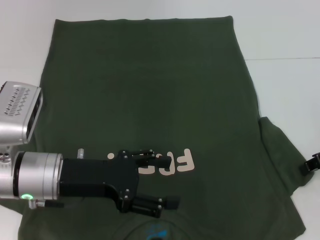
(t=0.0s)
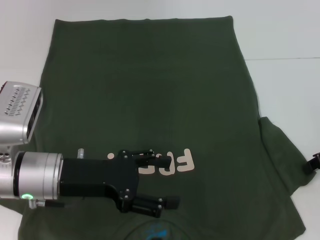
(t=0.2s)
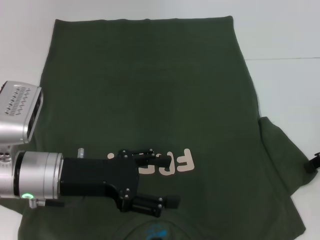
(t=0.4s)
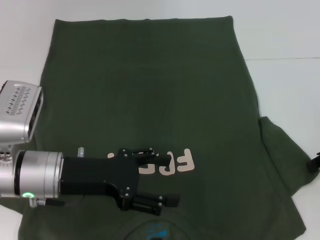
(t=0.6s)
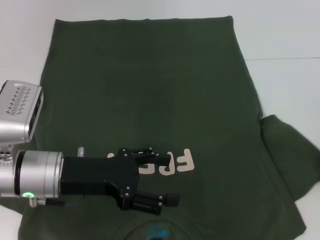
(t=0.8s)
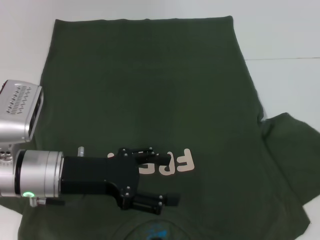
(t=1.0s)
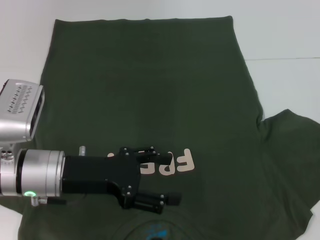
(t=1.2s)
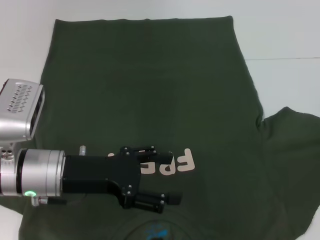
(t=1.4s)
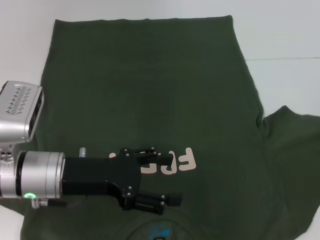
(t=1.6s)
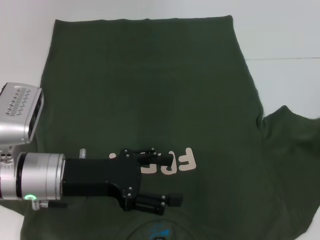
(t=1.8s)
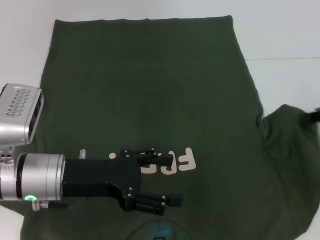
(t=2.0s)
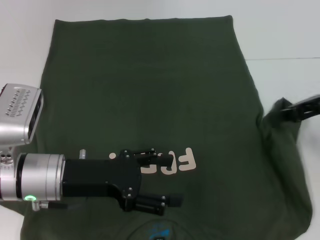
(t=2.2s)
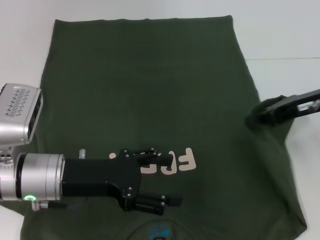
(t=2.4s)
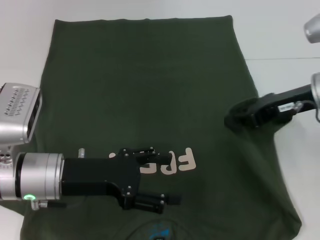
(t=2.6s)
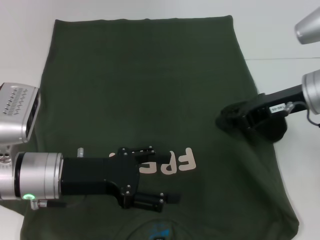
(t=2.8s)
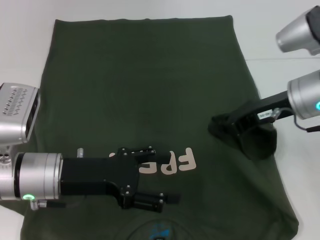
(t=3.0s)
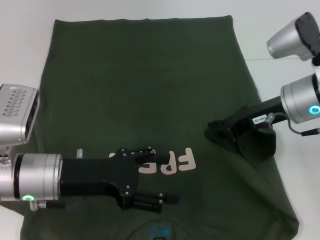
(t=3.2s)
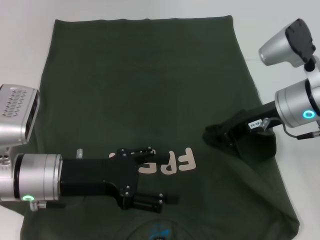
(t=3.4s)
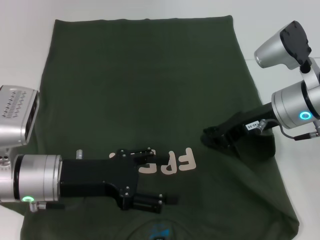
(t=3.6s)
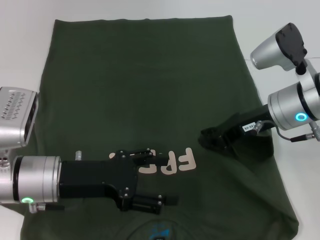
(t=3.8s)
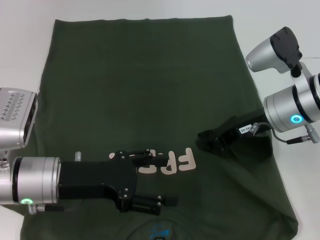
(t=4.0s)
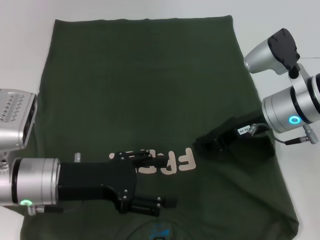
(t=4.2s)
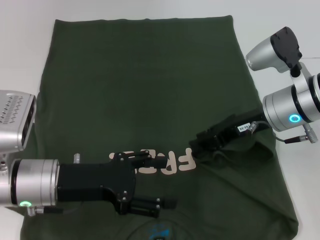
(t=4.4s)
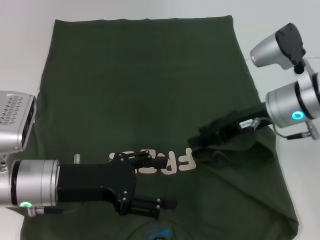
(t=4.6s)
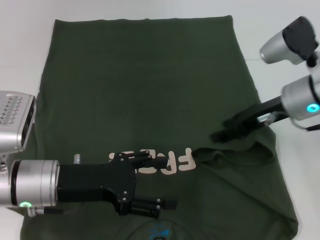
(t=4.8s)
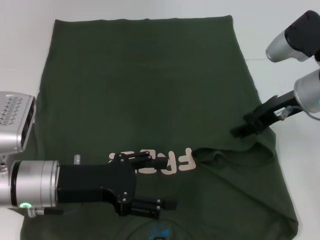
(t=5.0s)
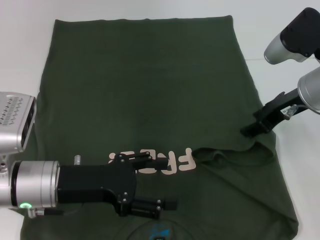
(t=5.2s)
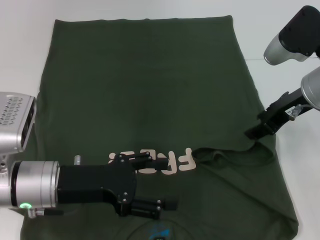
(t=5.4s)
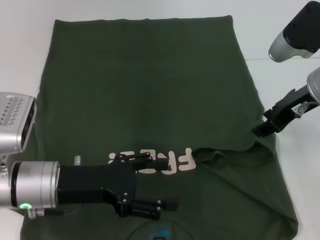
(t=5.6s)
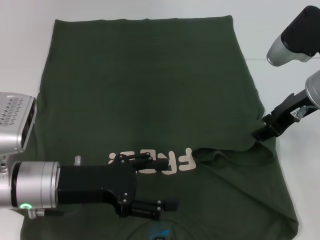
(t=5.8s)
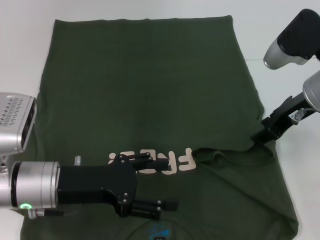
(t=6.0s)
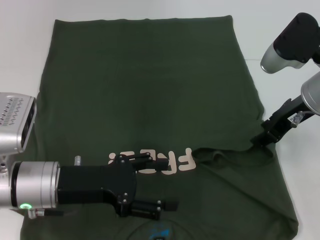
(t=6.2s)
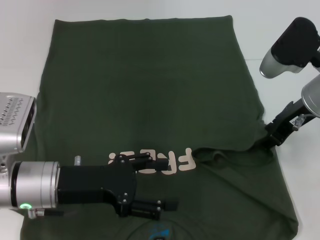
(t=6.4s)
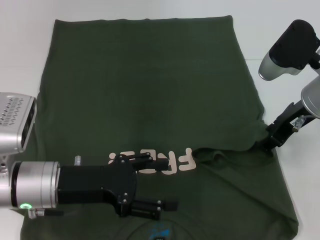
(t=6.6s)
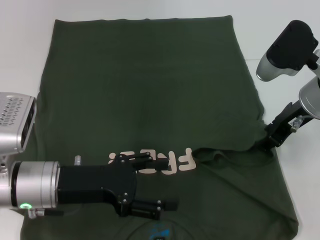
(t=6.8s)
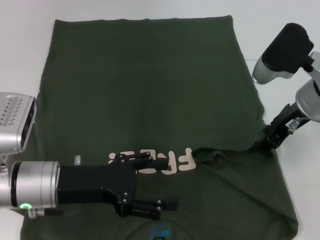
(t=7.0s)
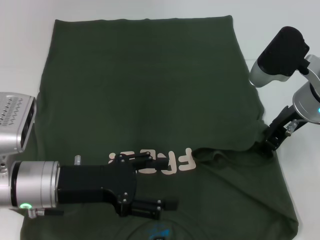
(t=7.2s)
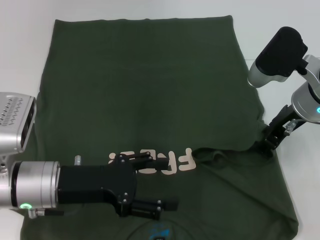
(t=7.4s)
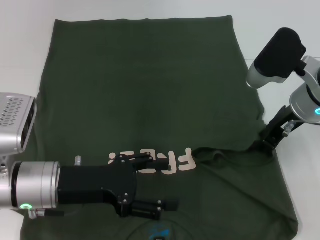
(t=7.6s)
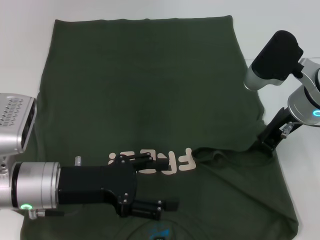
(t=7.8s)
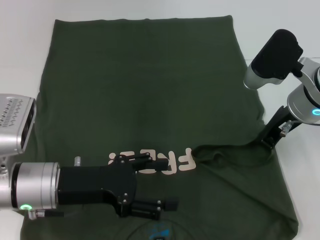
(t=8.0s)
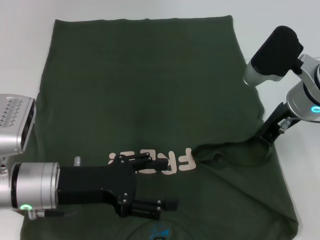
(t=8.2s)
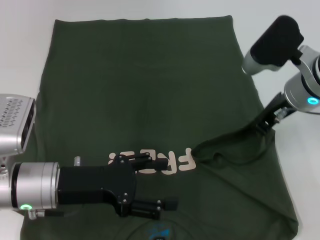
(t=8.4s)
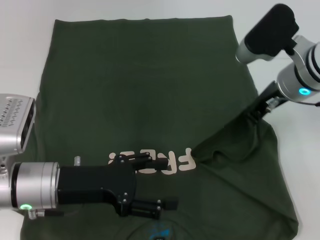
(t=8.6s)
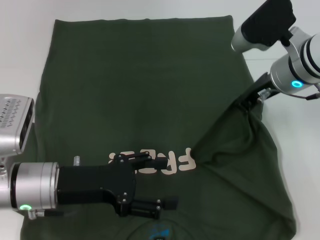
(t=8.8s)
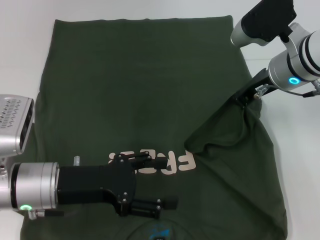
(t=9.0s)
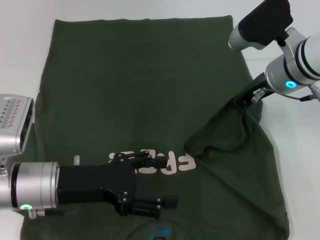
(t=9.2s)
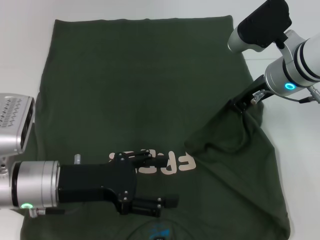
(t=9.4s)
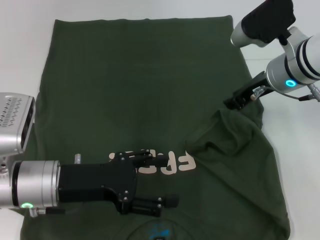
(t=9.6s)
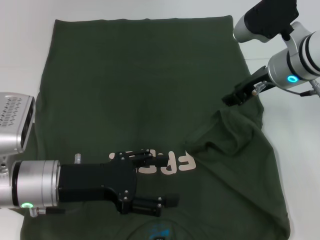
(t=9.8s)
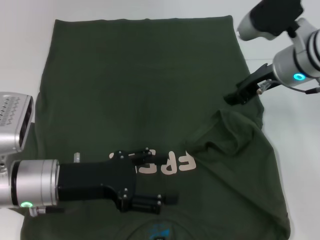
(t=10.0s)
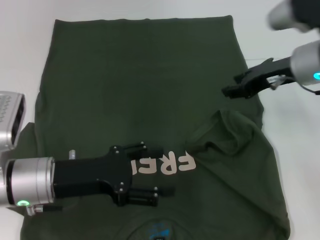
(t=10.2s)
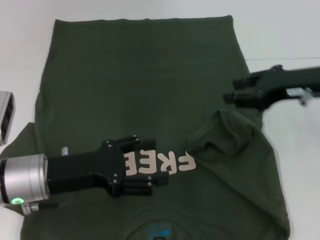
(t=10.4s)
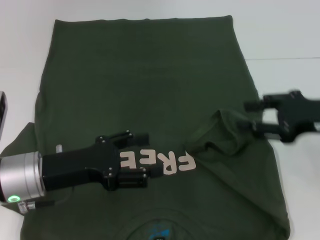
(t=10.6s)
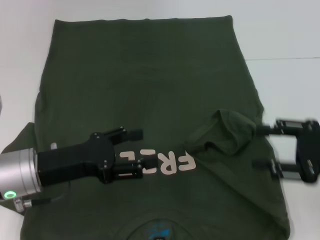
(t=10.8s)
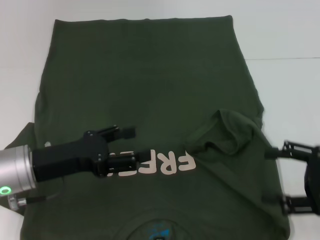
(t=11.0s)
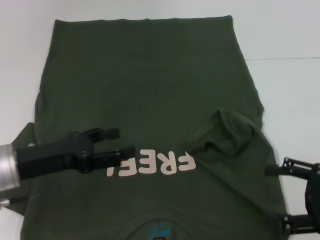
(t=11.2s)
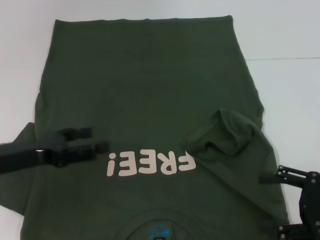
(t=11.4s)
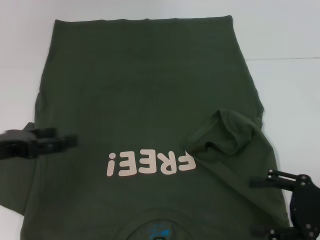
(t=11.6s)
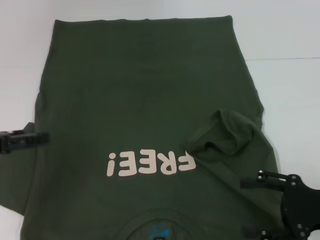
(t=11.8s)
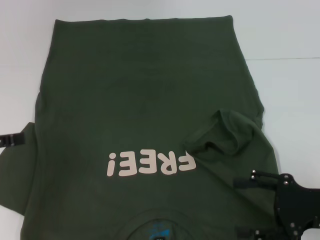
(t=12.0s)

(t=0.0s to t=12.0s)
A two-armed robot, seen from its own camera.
Step, t=0.0s - t=10.4s: Fold the bottom right sleeve with your right hand.
t=0.0s - t=1.6s: The right gripper changes place by some 5 cm, and closes.
t=1.6s - t=3.0s: The right gripper shifts roughly 15 cm to the left.
t=3.0s - t=4.4s: The grippers make only small movements.
t=4.4s - t=6.0s: The right gripper ends up approximately 5 cm from where it was, and opens its fingers.
t=6.0s - t=7.6s: There are only small adjustments of the grippers.
t=7.6s - t=9.0s: The right gripper closes up.
t=9.0s - t=10.4s: The right gripper moves to the right and backward, some 10 cm, and opens up.
t=10.4s - t=12.0s: The left gripper is displaced to the left and upward by some 15 cm. The right gripper travels backward and downward by about 15 cm, and opens.

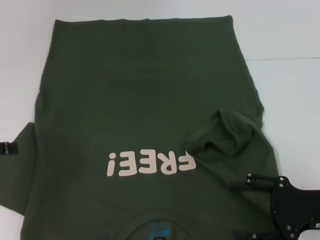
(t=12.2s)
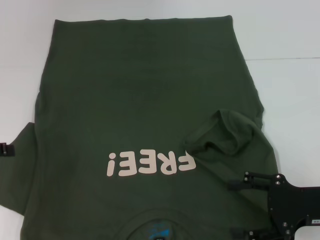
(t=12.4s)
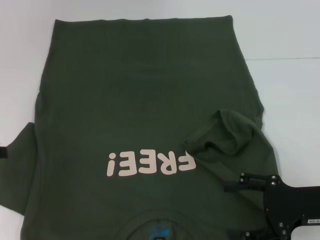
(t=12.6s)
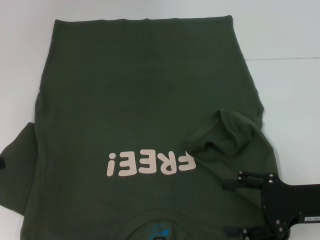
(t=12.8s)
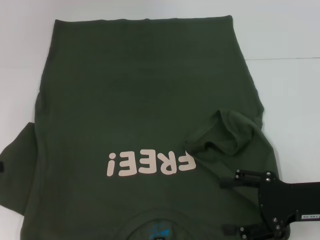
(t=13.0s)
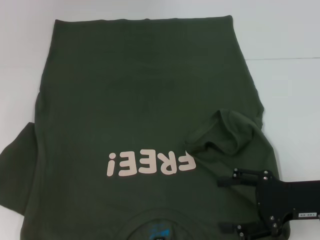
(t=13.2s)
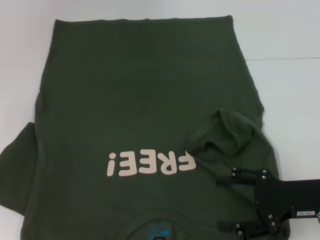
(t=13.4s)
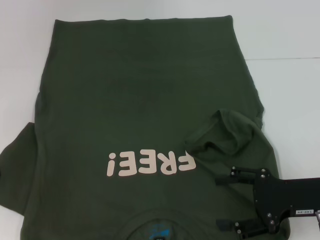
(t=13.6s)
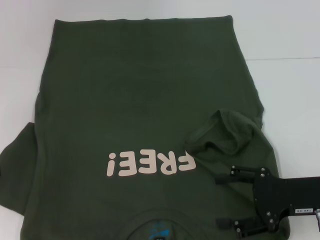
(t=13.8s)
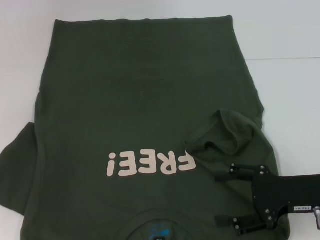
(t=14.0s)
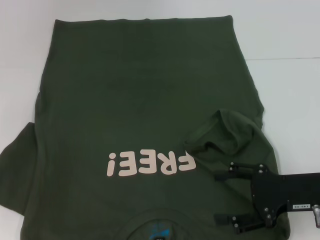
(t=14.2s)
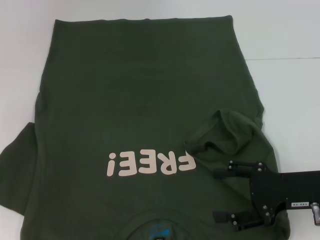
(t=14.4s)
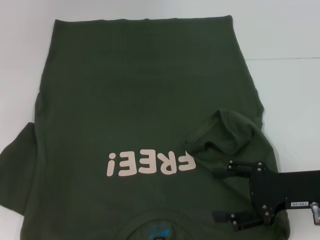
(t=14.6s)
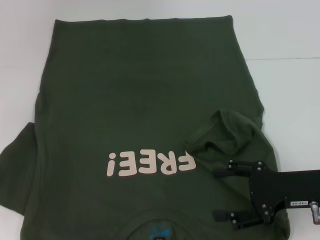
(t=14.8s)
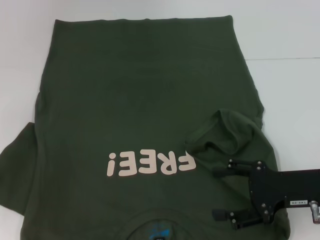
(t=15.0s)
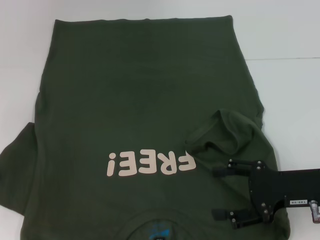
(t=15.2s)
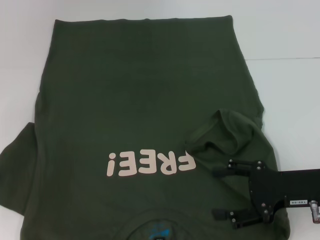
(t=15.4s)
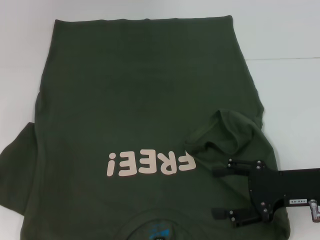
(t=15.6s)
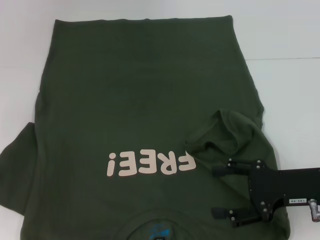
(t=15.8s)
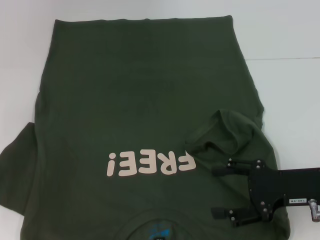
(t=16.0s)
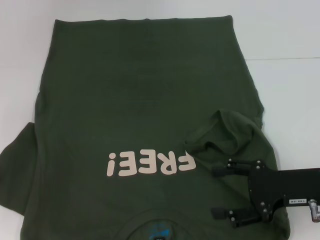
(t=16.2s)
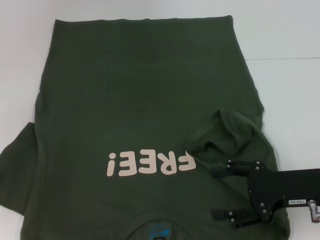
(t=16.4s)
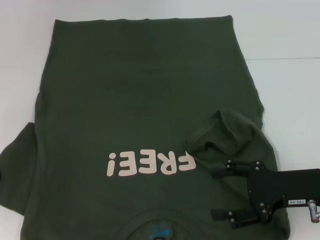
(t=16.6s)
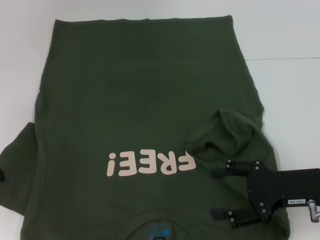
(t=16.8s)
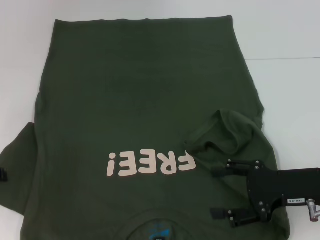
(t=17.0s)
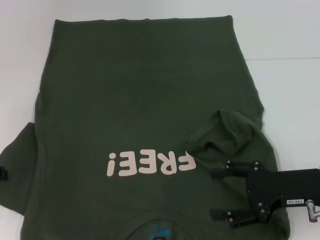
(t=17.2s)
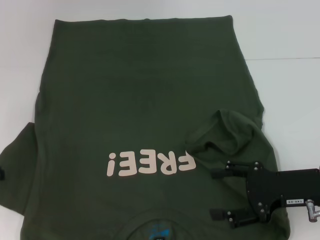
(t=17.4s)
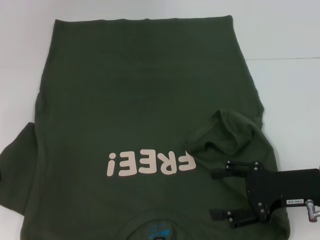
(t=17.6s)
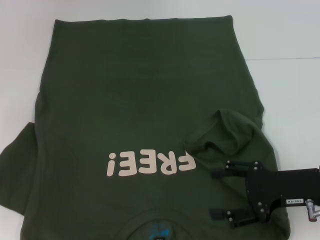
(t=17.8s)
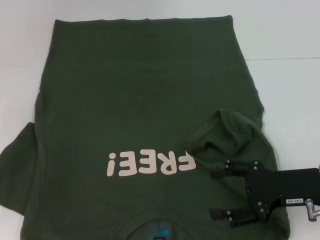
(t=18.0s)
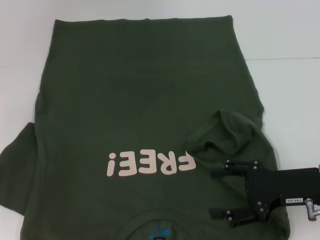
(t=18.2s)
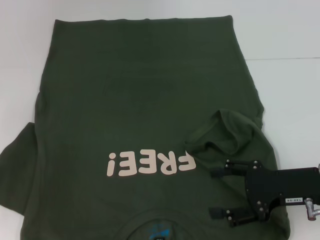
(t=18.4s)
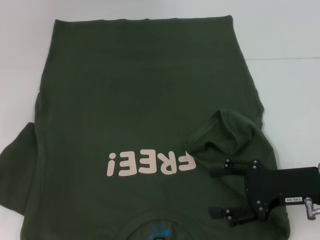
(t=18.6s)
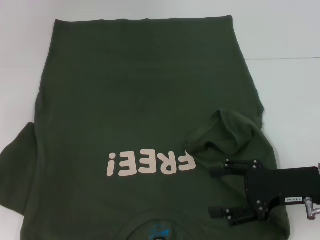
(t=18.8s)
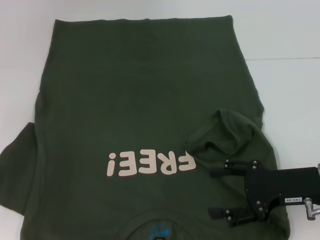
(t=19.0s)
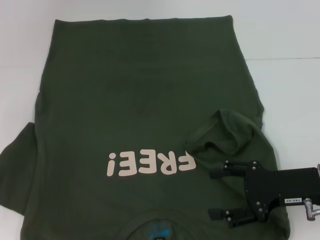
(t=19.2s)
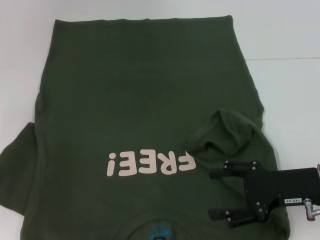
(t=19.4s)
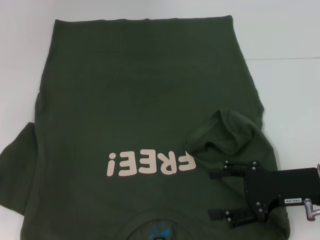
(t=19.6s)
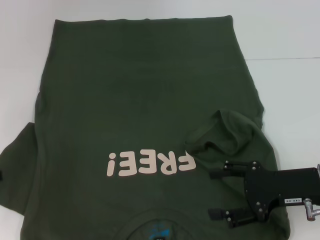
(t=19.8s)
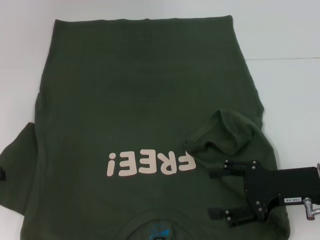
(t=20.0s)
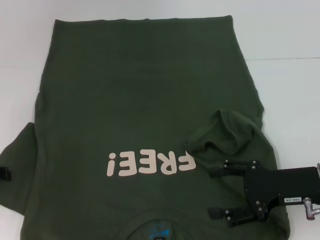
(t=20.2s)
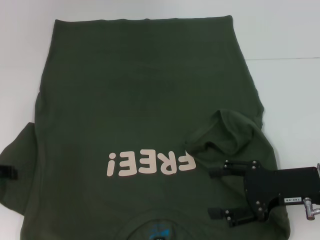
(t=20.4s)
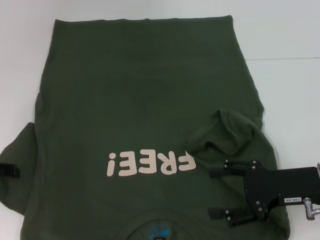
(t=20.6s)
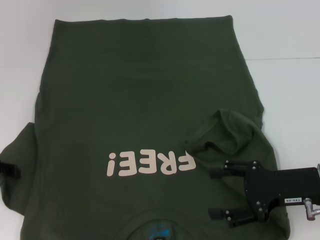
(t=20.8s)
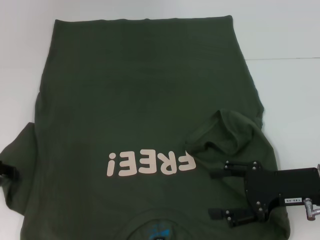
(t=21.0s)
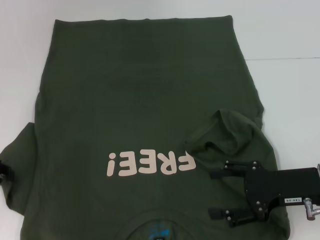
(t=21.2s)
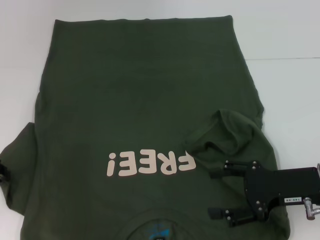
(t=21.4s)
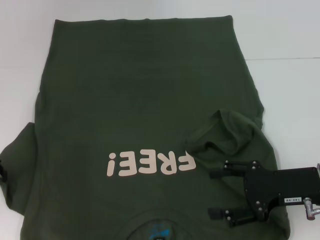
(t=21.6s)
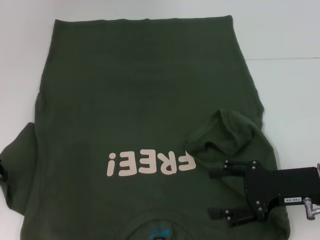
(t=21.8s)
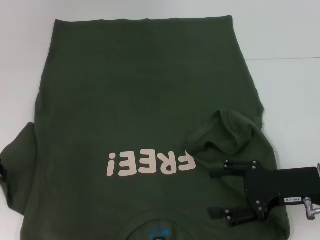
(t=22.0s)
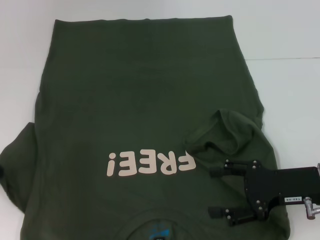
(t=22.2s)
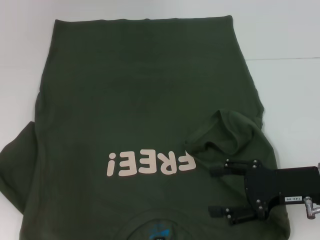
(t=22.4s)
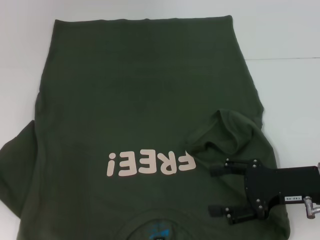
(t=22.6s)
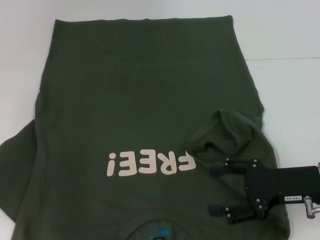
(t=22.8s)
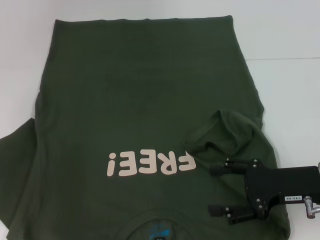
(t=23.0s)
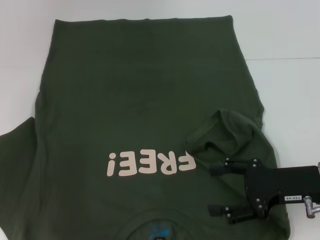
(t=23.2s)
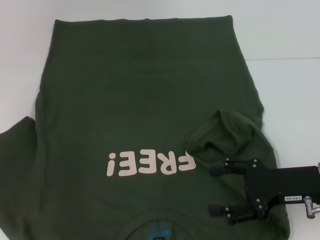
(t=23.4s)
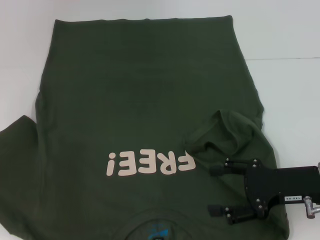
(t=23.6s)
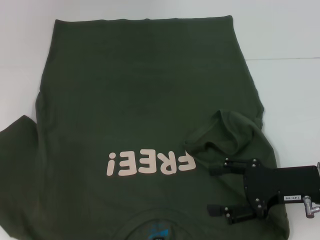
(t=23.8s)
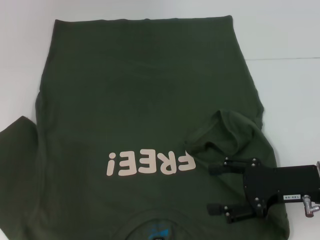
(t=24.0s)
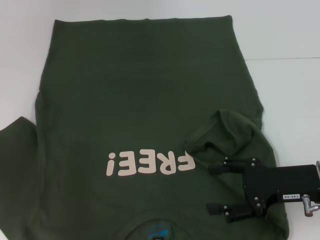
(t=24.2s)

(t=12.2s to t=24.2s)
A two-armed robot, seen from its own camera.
t=13.8s - t=16.6s: Both grippers stay put.
t=16.6s - t=19.8s: Both grippers stay put.
t=21.2s - t=22.6s: The left gripper closes.
t=22.6s - t=24.2s: The grippers stay close to where they were, moving slightly.
